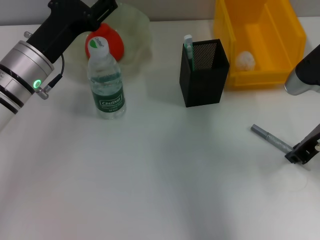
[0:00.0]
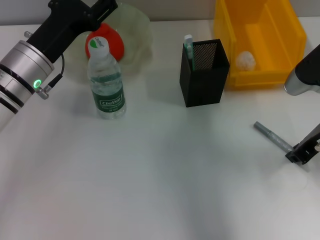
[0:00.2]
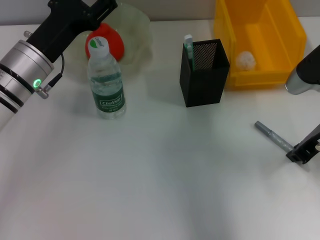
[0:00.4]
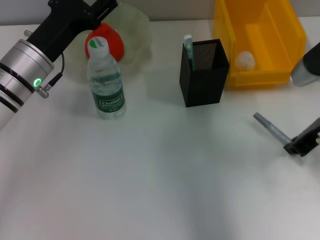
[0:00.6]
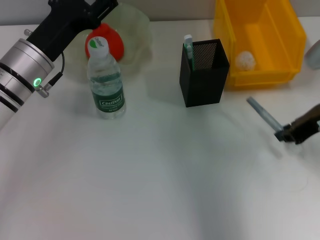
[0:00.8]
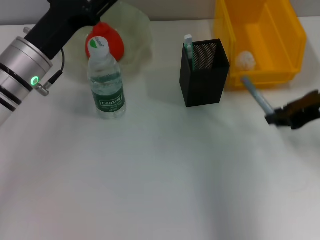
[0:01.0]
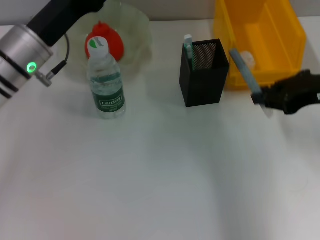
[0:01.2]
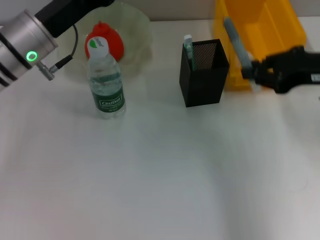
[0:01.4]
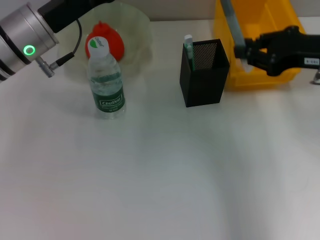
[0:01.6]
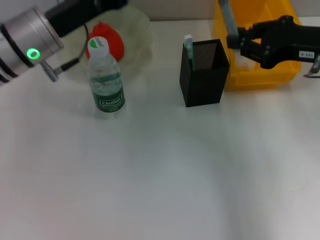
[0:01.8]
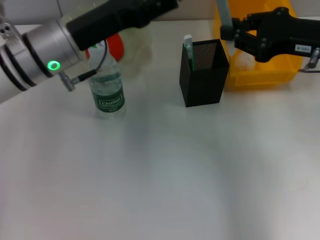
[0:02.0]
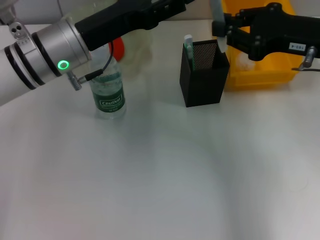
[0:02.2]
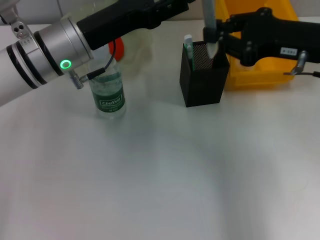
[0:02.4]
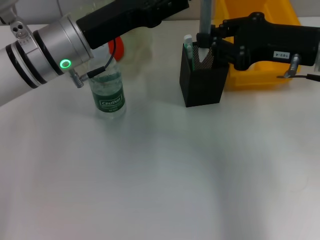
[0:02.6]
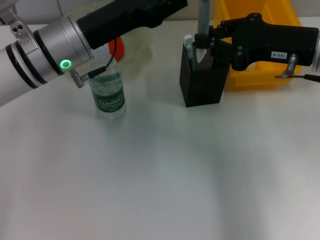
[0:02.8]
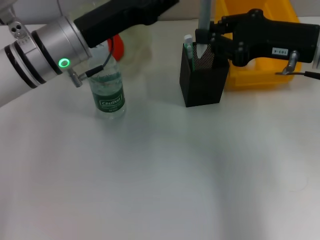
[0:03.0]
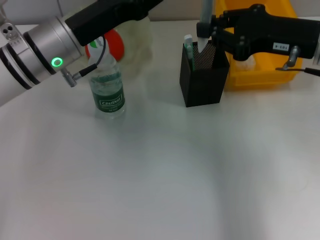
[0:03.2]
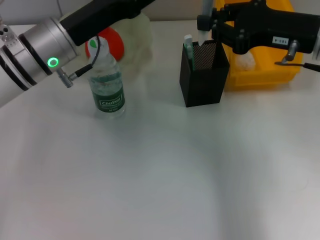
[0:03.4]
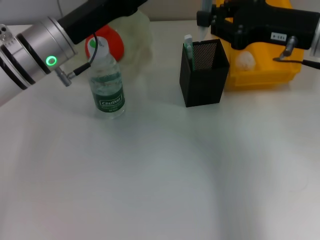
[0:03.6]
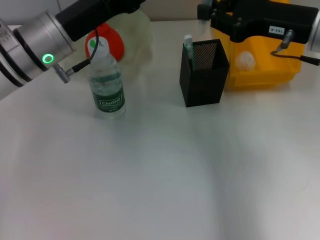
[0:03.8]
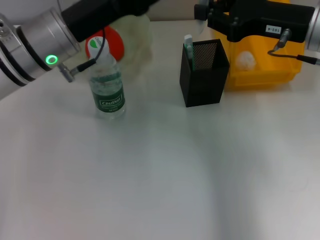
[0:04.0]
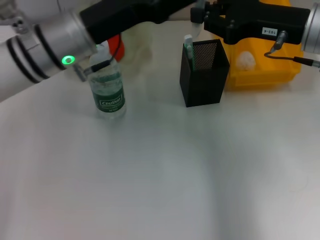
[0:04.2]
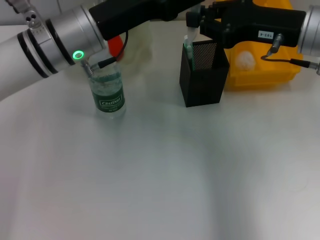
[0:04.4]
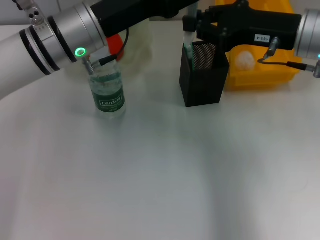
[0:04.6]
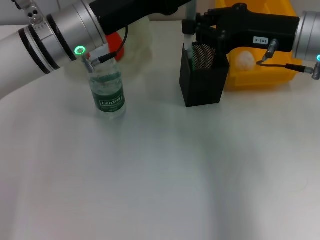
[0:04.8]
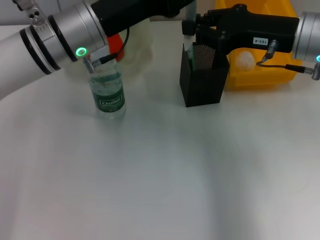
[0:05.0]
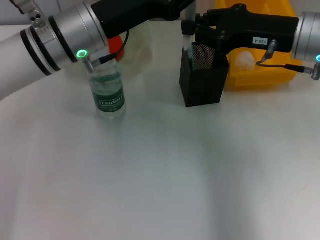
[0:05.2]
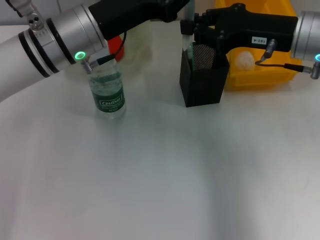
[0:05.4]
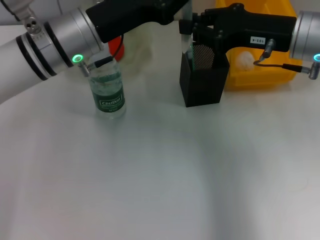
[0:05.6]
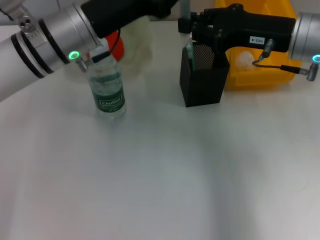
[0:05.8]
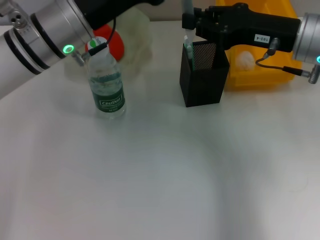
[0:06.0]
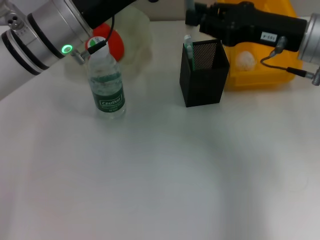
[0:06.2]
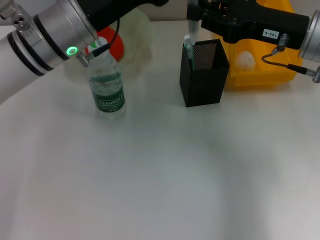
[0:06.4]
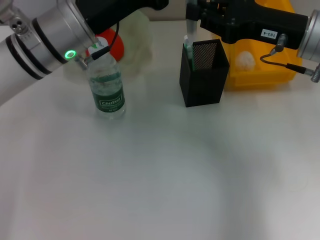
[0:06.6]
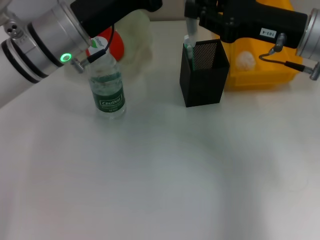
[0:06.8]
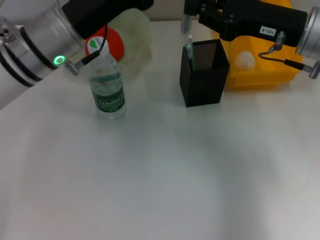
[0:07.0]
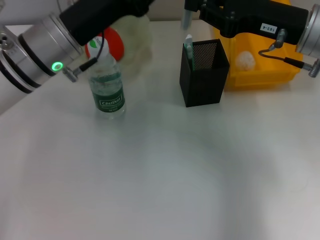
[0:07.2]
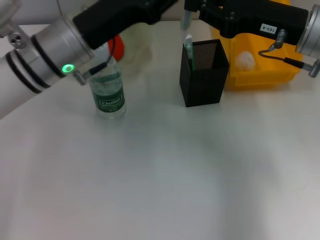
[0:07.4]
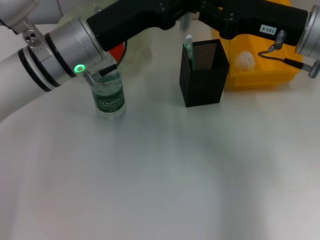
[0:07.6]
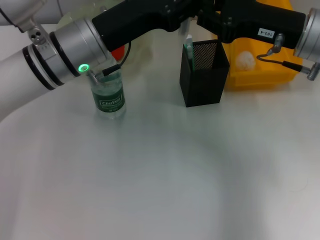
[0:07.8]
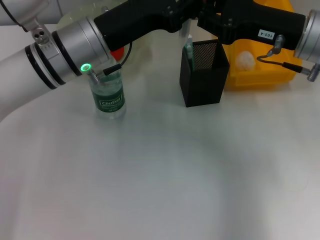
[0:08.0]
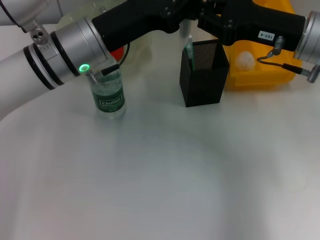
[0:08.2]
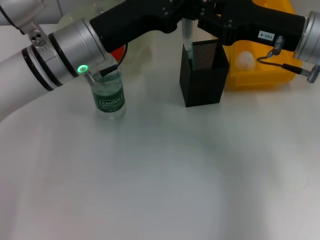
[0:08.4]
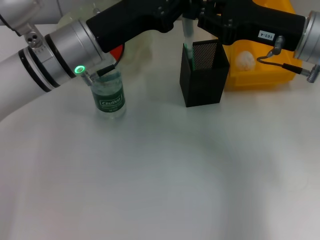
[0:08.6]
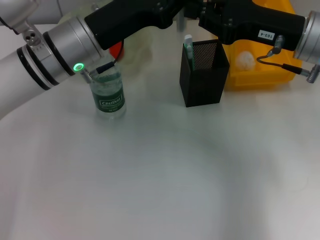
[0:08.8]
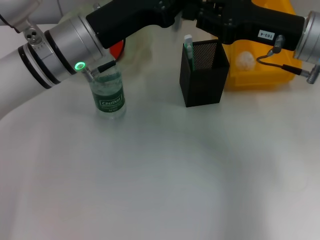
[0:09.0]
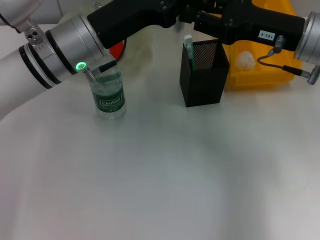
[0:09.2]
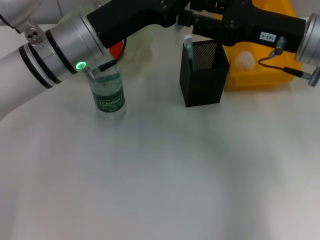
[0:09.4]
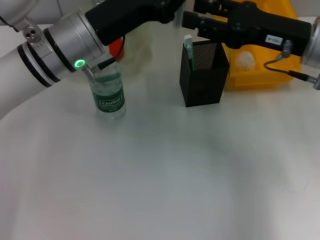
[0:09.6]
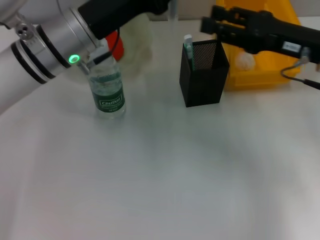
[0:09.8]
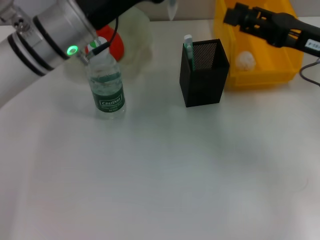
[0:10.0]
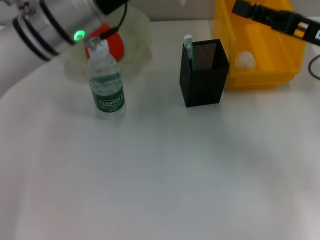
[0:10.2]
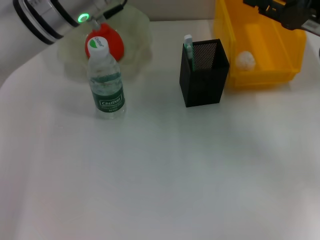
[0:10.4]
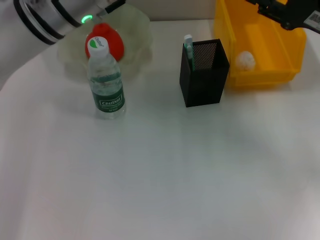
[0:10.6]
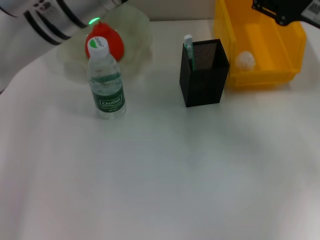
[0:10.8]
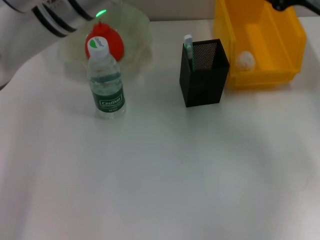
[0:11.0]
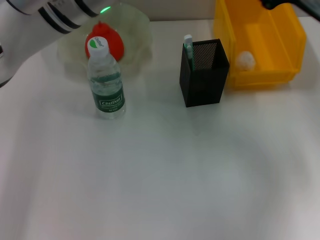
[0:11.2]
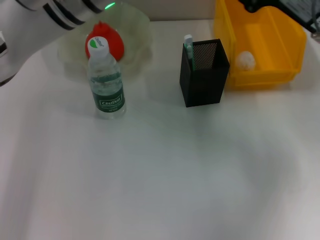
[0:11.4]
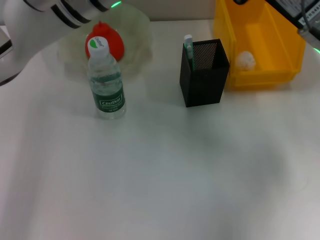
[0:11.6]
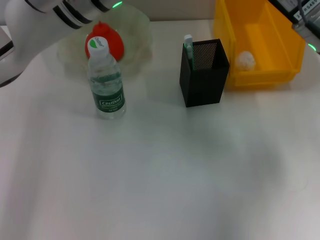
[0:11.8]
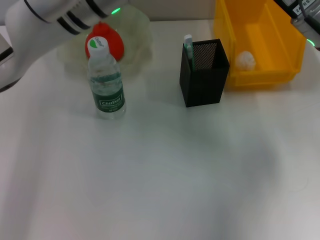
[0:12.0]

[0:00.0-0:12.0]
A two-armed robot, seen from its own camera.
Step, 0:00.4 to 0:09.6: Pass the gray glue from the right hand to the left hand.
0:00.0 to 0:01.6: The two grippers go some 5 cm upward.
0:01.6 to 0:04.4: The grippers make only small movements.
0:04.4 to 0:06.0: The left gripper closes.
0:06.0 to 0:07.6: The left gripper opens its fingers.
0:07.6 to 0:09.0: The left gripper closes.
0:09.0 to 0:10.4: The right gripper shifts roughly 5 cm to the right, and opens its fingers, while the left gripper is displaced upward by approximately 5 cm.
0:10.4 to 0:12.0: The right gripper heads to the left, covering about 10 cm.

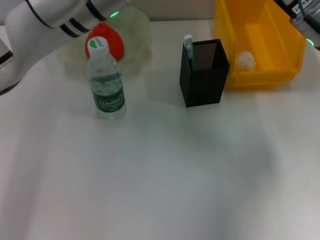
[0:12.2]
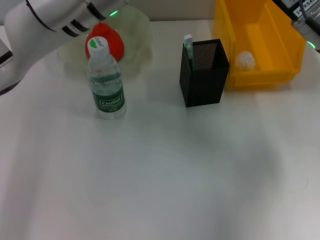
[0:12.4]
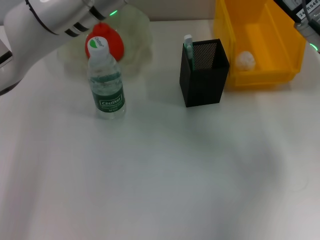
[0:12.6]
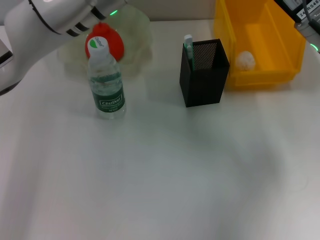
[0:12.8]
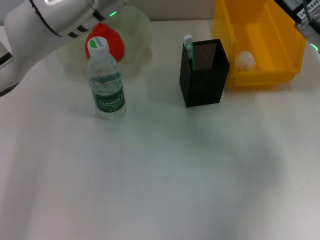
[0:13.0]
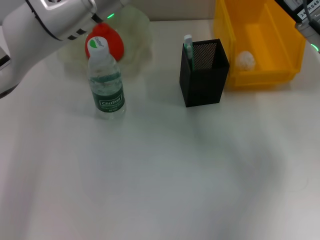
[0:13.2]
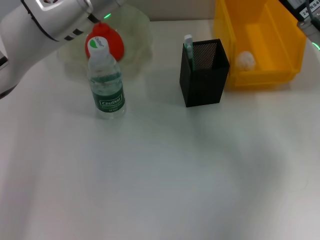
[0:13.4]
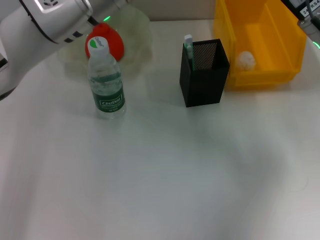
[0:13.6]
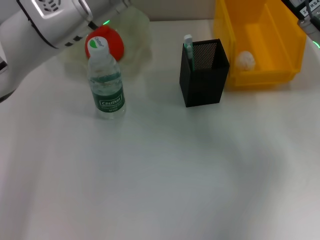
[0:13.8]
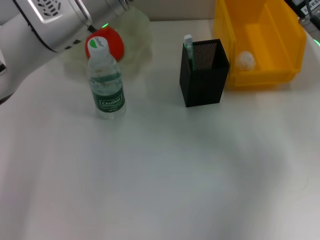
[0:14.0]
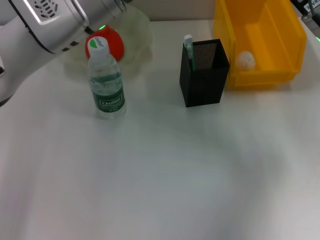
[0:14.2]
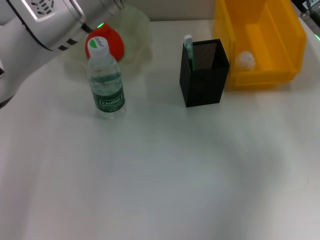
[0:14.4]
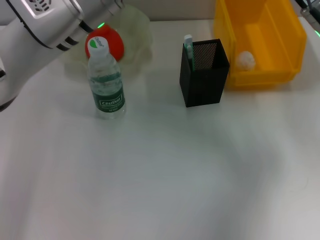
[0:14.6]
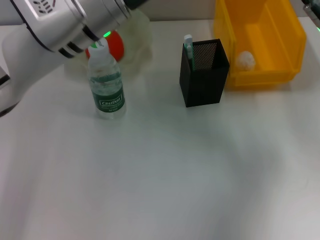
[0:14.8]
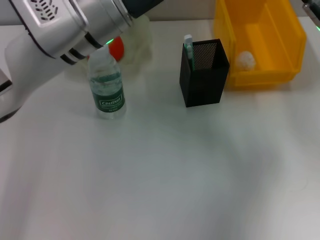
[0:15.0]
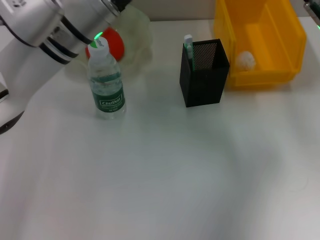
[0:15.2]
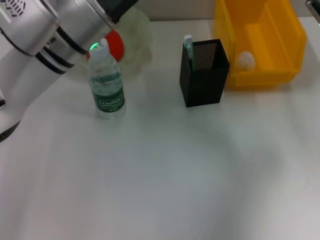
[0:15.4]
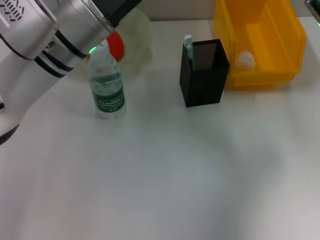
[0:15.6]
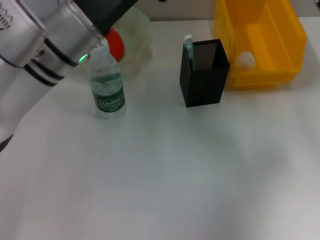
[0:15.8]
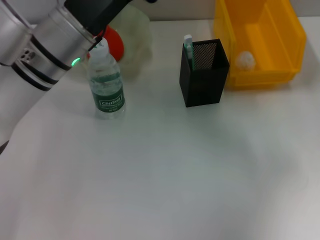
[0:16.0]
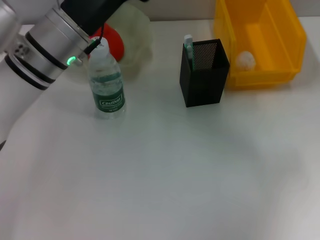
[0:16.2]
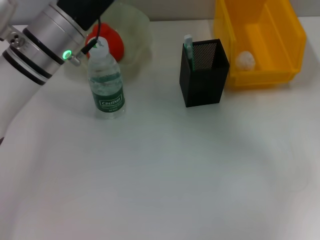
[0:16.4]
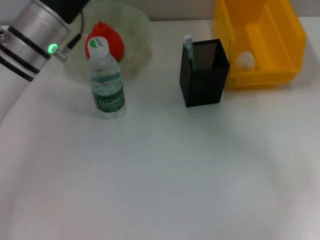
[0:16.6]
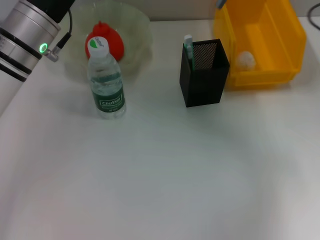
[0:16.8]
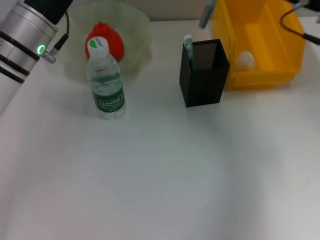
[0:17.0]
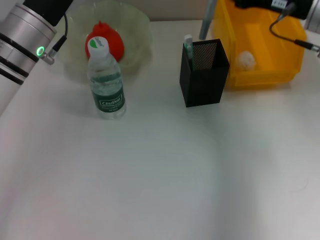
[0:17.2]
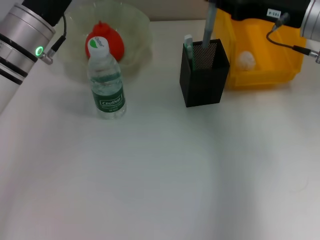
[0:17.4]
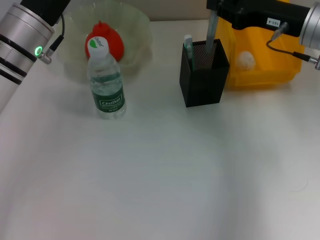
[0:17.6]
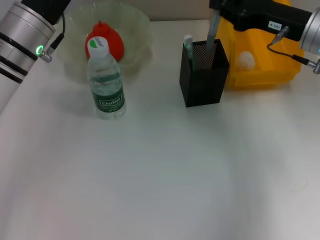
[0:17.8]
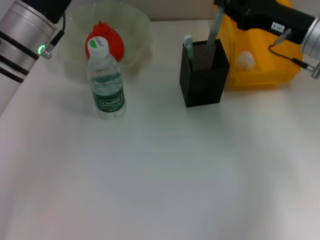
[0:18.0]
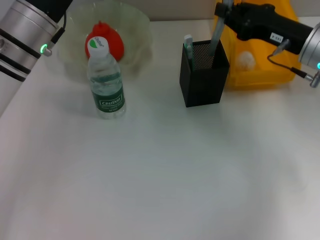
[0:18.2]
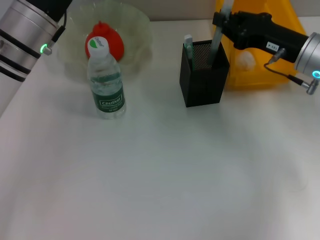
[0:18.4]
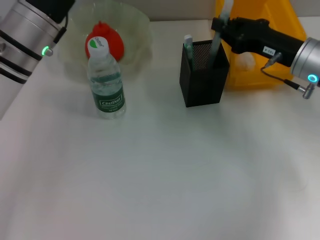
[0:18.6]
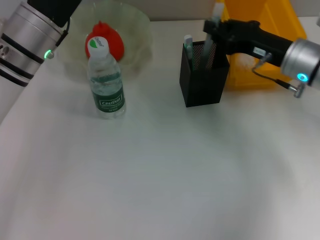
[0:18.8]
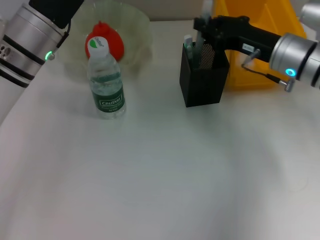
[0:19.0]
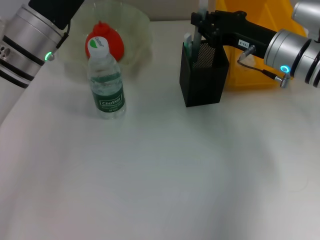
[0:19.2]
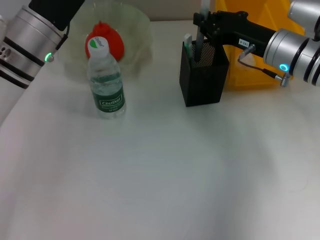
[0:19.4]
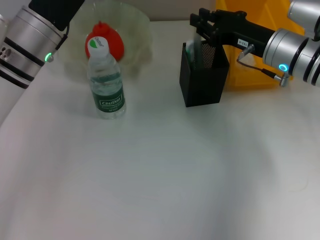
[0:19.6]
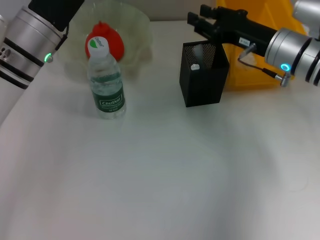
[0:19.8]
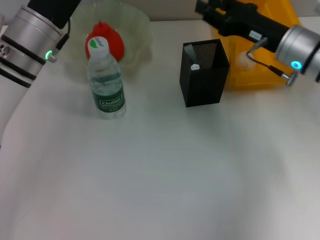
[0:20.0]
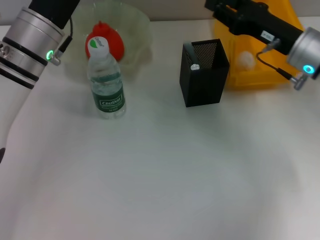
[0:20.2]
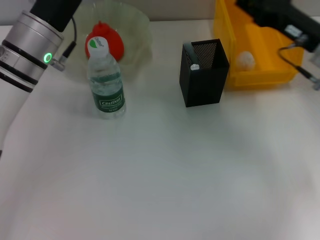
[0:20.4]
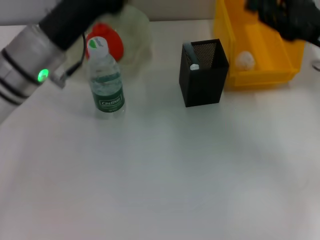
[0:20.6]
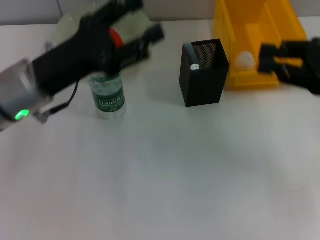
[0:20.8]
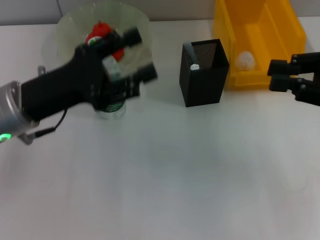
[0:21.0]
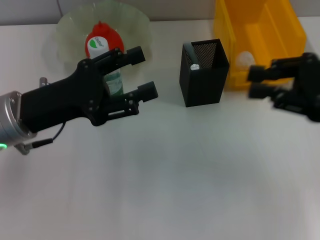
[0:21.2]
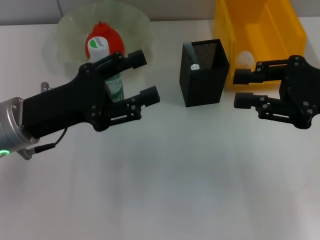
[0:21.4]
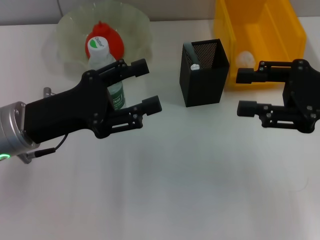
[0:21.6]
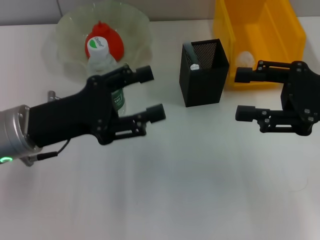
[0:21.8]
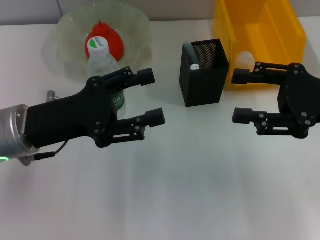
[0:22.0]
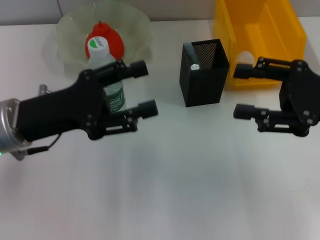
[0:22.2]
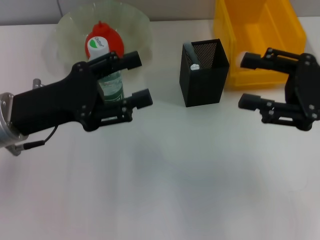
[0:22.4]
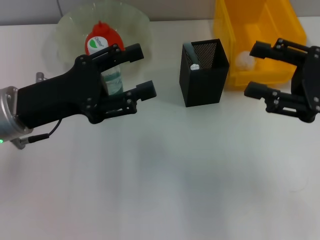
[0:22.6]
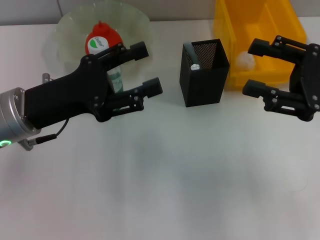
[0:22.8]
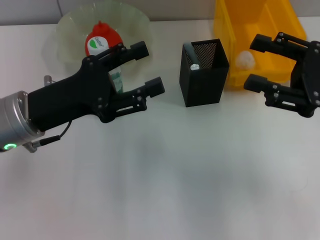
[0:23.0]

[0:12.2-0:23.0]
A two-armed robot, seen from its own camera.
Step, 0:12.2 to 0:16.4: Pass the gray glue from the left hand to the right hand.
Step, 0:16.6 to 0:19.8: Place the gray glue into the pen holder with the right hand.
0:12.2 to 0:13.8: The right gripper closes up.
0:13.8 to 0:15.2: The left gripper opens.
0:15.2 to 0:16.8: The right gripper moves to the right, roughly 5 cm. The left gripper is displaced to the left by about 5 cm, and opens its fingers.
0:16.8 to 0:18.4: The right gripper goes approximately 10 cm downward.
0:18.4 to 0:20.0: The right gripper opens up.
0:20.0 to 0:21.4: The right gripper shifts approximately 15 cm backward, to the right and upward. The left gripper shifts roughly 10 cm backward.
0:21.4 to 0:23.0: The right gripper opens.
